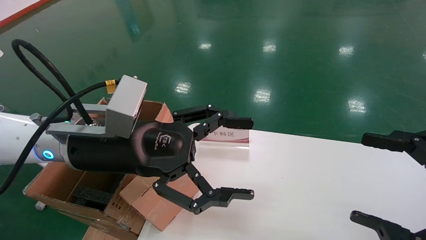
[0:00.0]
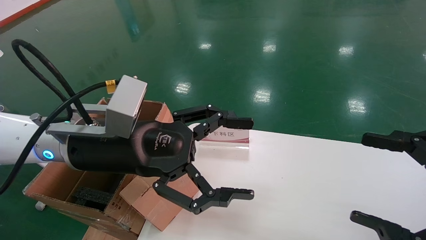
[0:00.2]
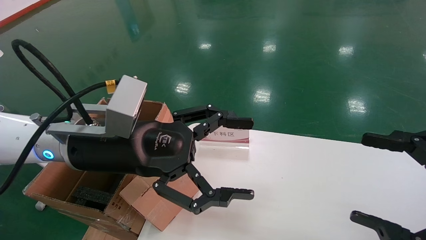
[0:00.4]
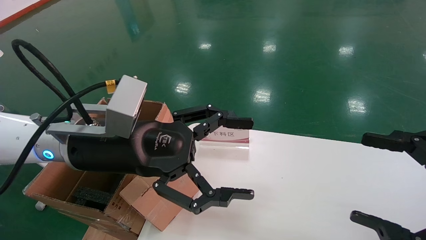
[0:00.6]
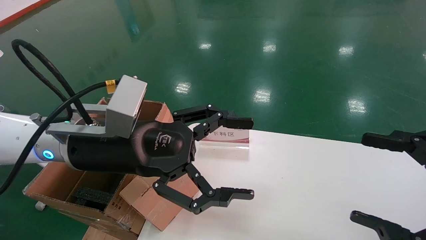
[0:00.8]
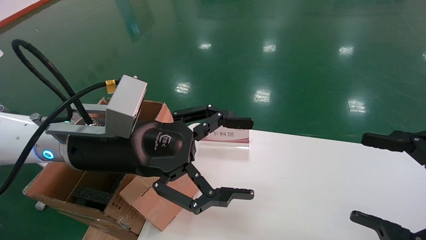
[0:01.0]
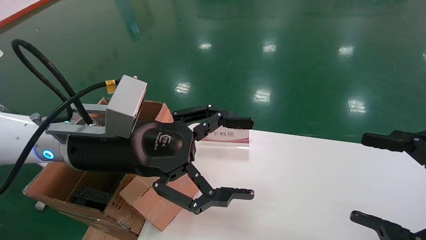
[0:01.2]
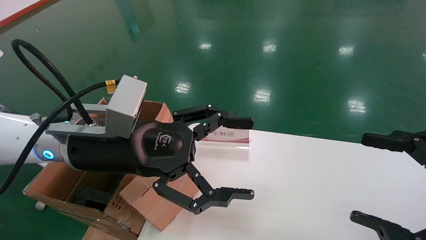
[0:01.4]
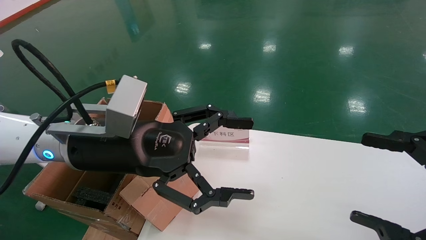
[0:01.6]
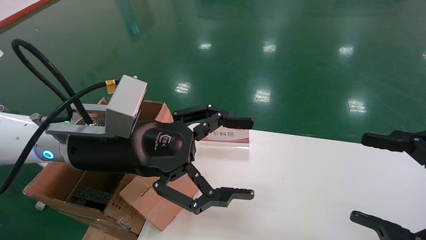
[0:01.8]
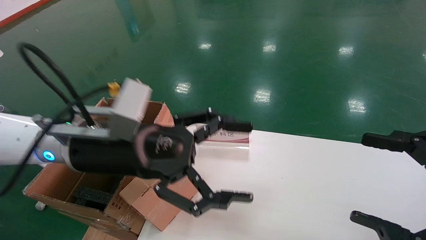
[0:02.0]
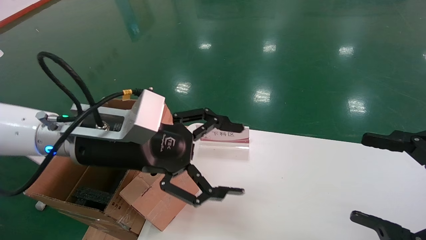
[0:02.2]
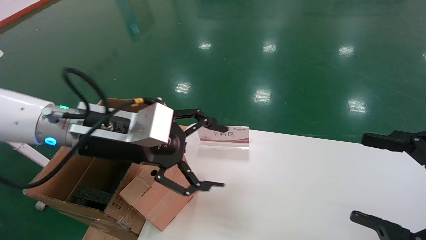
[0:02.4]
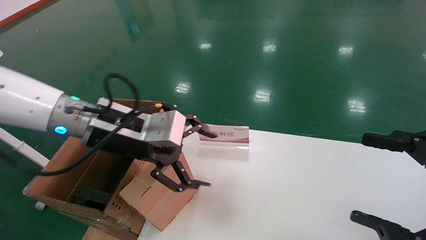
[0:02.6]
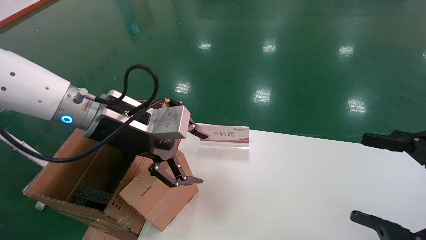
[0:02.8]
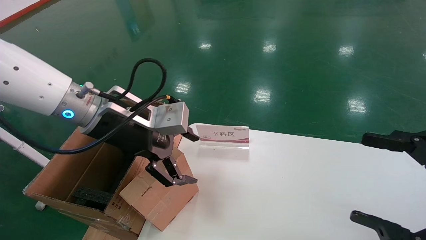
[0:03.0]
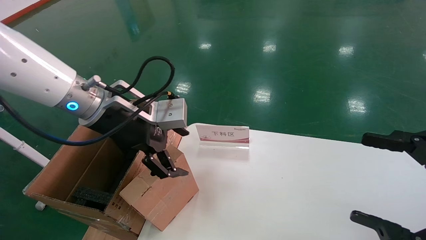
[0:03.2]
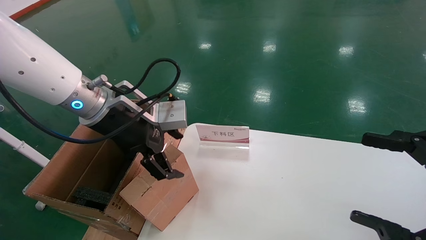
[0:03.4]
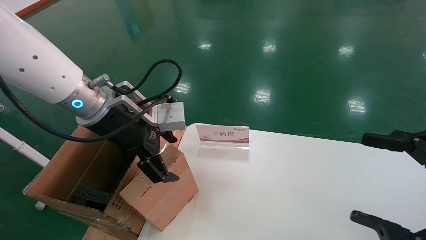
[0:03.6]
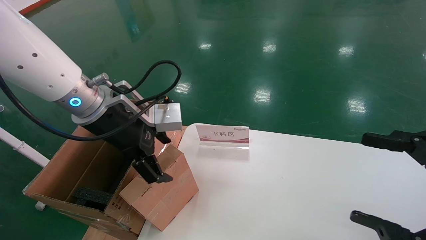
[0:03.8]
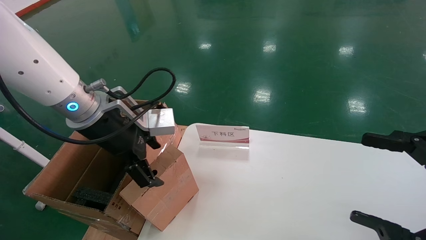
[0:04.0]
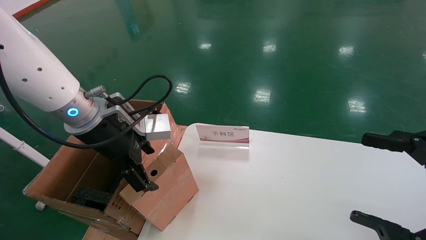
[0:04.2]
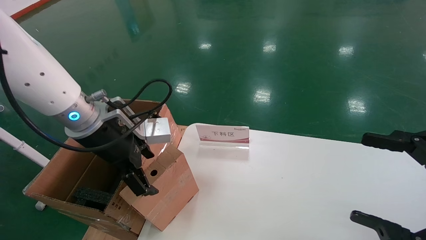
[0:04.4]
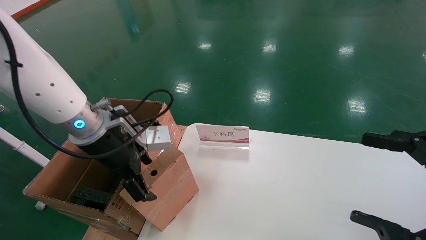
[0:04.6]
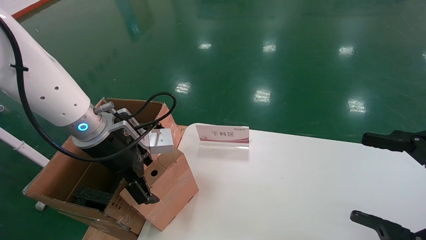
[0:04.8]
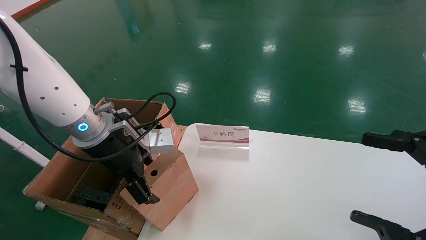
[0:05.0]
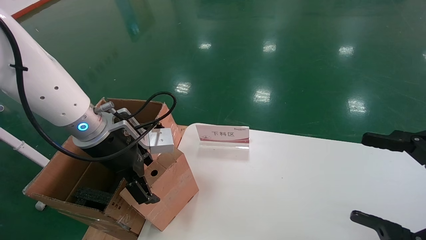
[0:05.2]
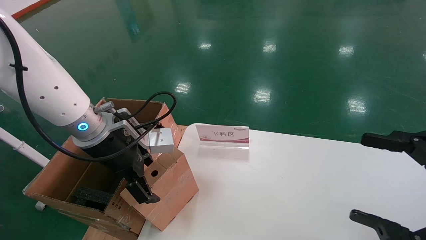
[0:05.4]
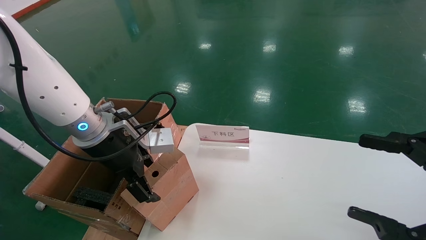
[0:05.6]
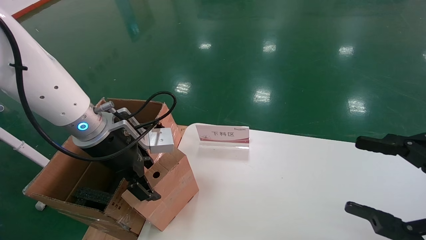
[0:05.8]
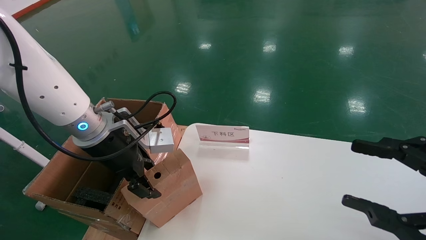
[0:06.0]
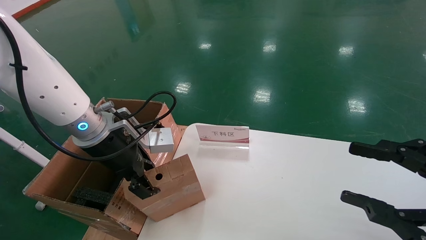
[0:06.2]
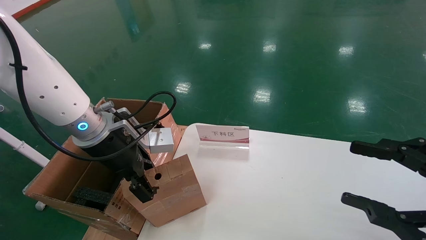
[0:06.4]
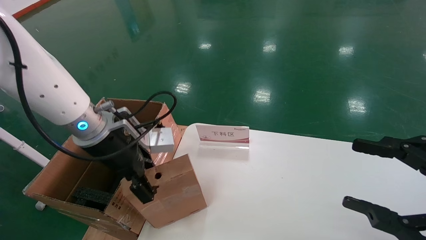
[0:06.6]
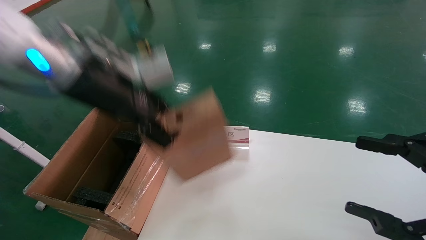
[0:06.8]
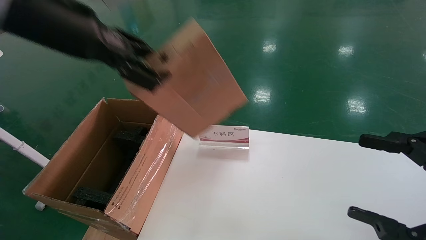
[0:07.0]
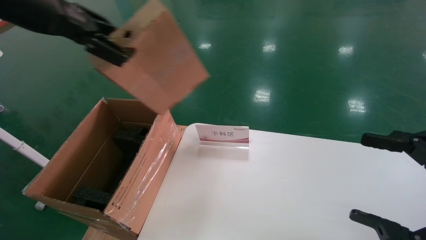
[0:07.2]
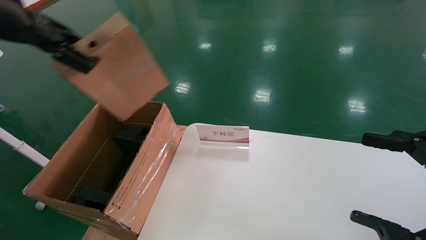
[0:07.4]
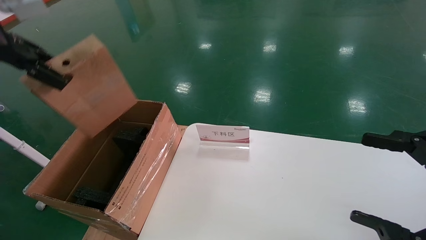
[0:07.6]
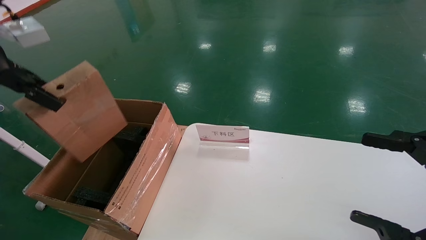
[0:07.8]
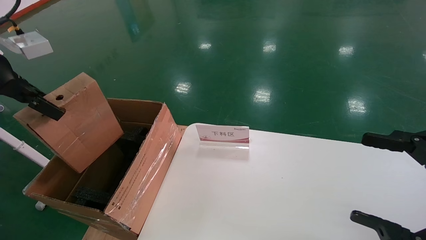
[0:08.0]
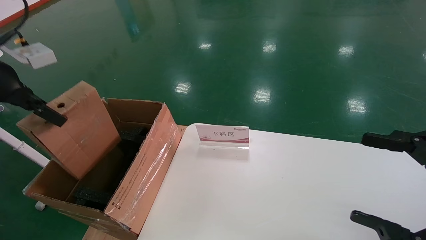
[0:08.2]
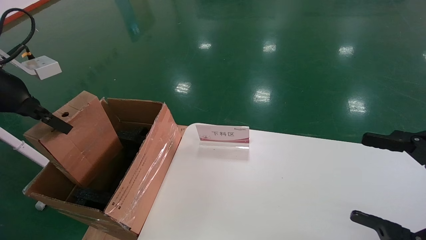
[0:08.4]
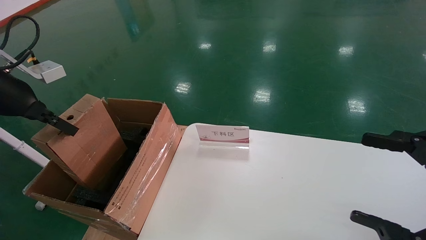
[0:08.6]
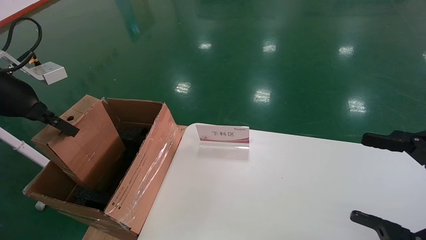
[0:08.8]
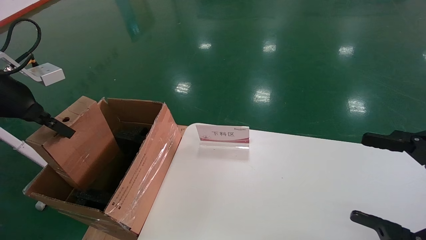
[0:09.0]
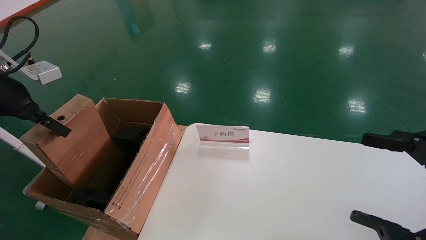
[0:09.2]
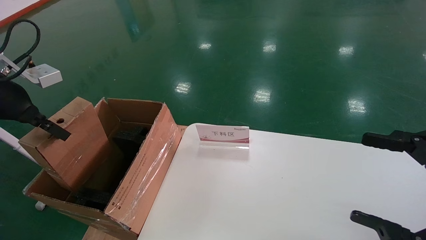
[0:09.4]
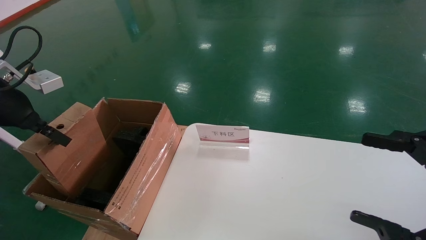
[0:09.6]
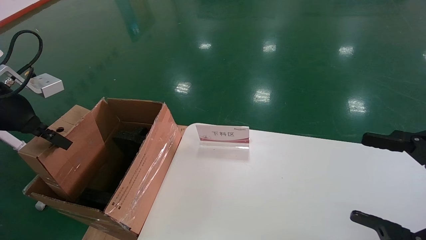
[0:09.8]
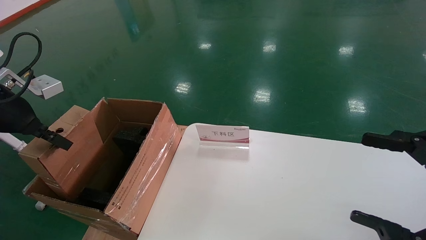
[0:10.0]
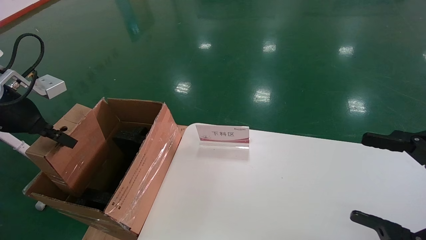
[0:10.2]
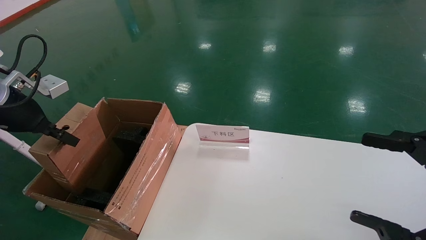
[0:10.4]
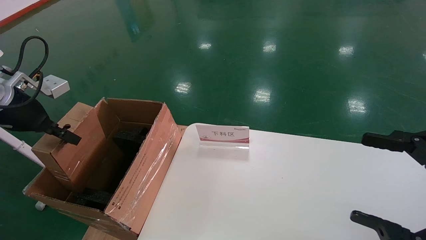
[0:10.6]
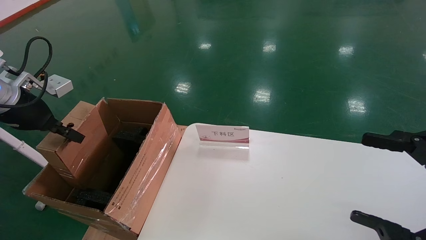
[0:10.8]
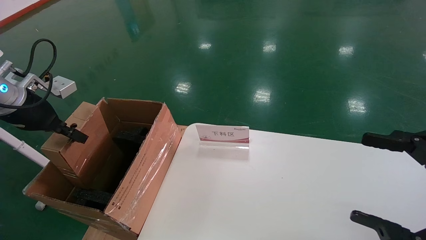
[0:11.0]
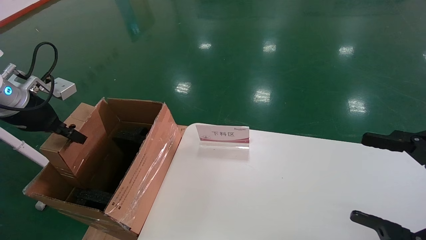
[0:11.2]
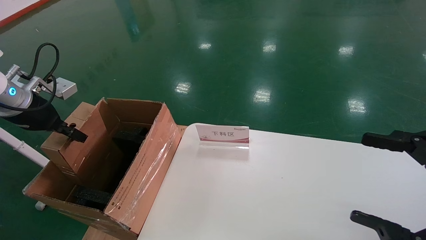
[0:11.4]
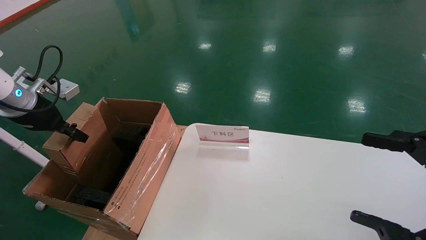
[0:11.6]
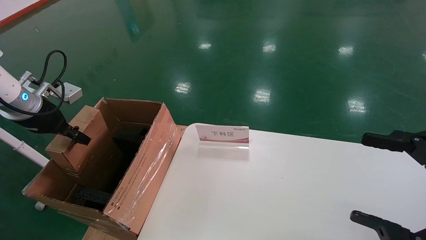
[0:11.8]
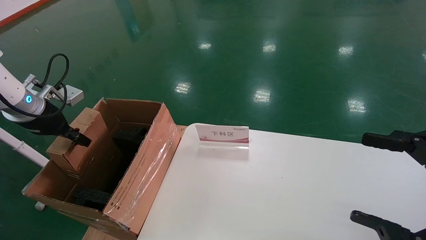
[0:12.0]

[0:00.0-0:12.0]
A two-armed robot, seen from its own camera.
Task of the whole recording: pick up the small cardboard box and load it into the large cardboard box.
Step, 0:02.4 to 0:06.2: Pick up the mouse and power cord box.
0:00.0 to 0:01.6: Both grippers stay put.
0:01.6 to 0:03.0: The left gripper moves forward, roughly 5 cm.
0:04.4 to 0:06.0: The right gripper closes up; the left gripper closes.
0:06.0 to 0:07.6: The right gripper opens. The left gripper shifts about 25 cm upward and to the left, and closes up.
0:07.6 to 0:09.0: The left gripper travels downward and to the left by roughly 10 cm.
0:09.0 to 0:10.4: The grippers move only a little.
0:10.4 to 0:12.0: The left gripper shifts some 5 cm forward.

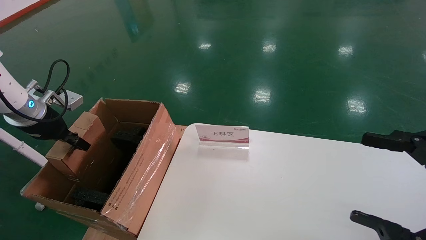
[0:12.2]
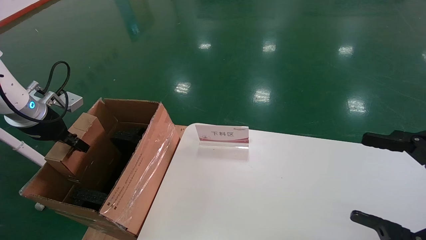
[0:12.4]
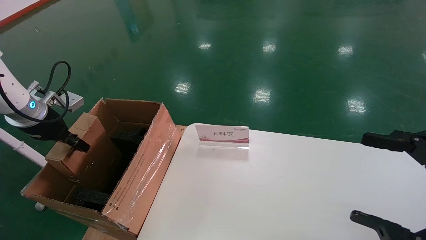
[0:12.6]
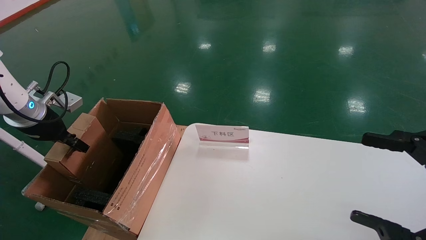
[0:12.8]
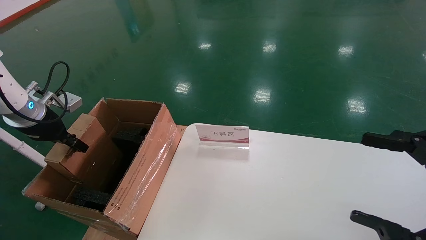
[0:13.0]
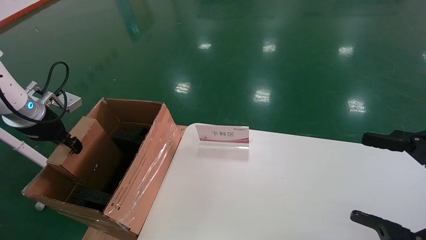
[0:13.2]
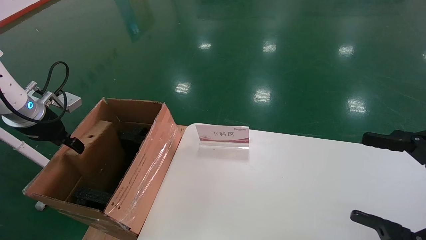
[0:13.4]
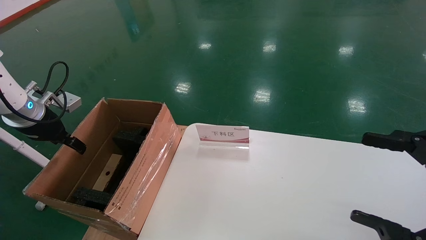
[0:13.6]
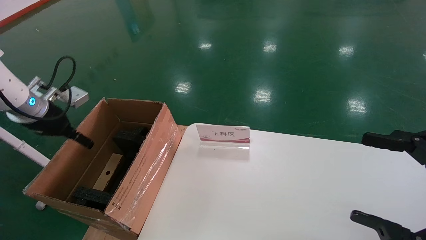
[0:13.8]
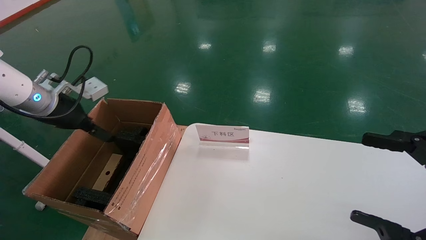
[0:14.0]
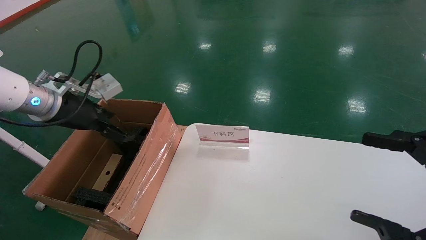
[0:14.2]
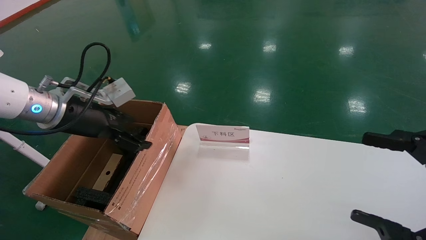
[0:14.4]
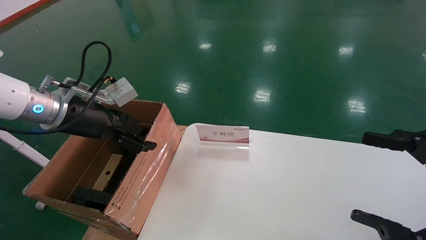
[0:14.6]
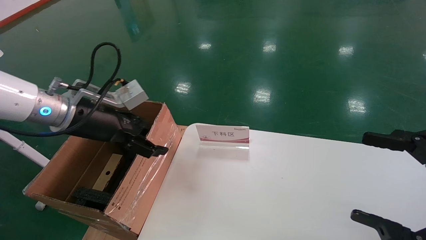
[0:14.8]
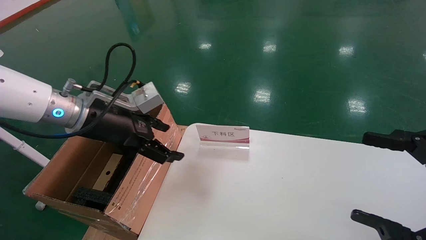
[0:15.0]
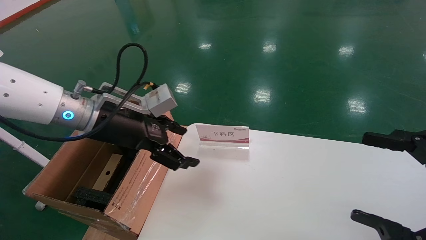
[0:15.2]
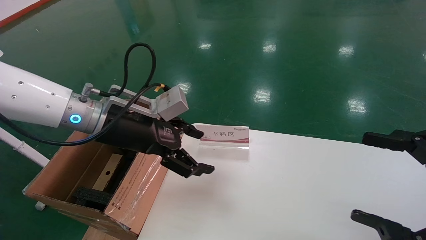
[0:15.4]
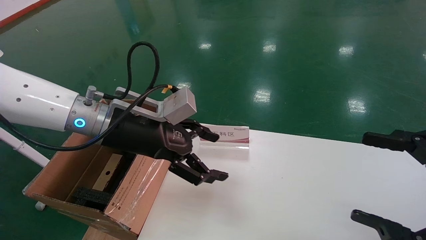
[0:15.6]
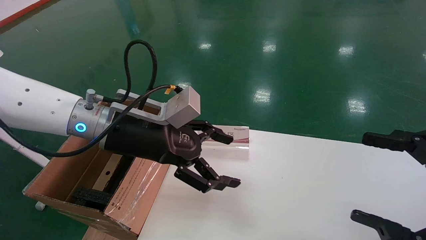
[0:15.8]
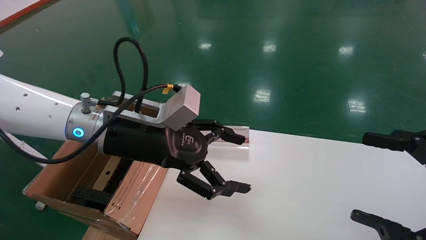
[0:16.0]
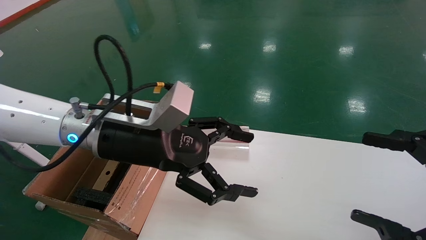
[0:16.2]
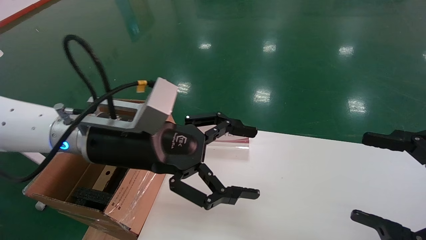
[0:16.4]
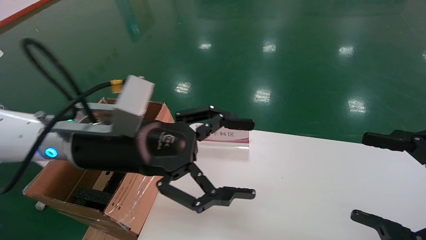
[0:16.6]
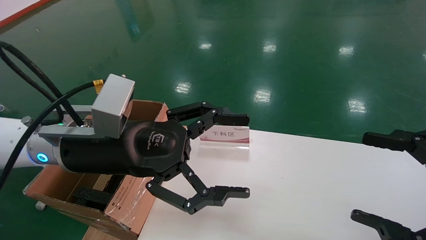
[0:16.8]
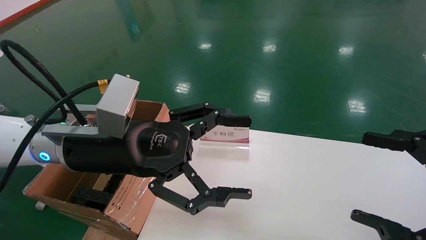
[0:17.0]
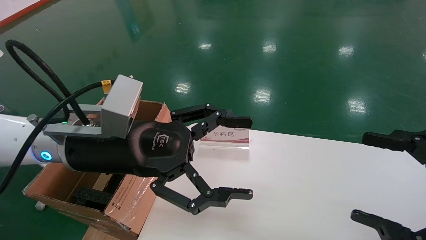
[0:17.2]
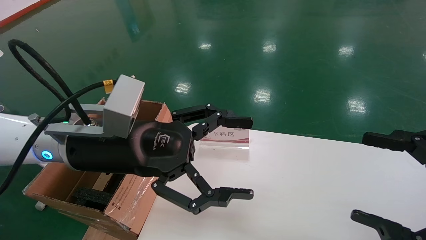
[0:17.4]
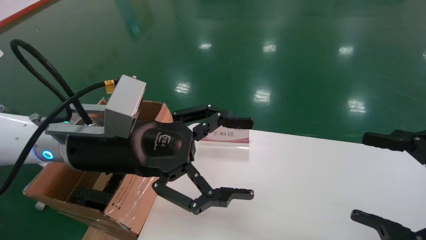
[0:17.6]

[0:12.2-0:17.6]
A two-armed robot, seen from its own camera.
Task of the whole recording: pick up the small cardboard box and load it into the large cardboard box.
0:12.2 to 0:13.6: The left gripper opens up.
0:13.6 to 0:15.0: The left gripper is displaced to the right by about 20 cm, and opens its fingers.
0:15.0 to 0:16.2: The left gripper heads to the right, covering about 10 cm.
0:16.2 to 0:17.6: The grippers move only a little.
